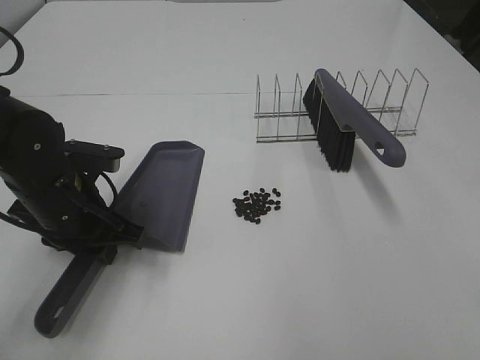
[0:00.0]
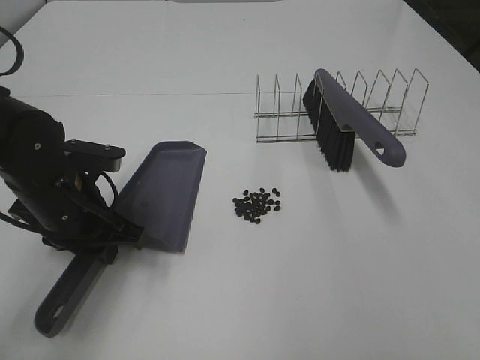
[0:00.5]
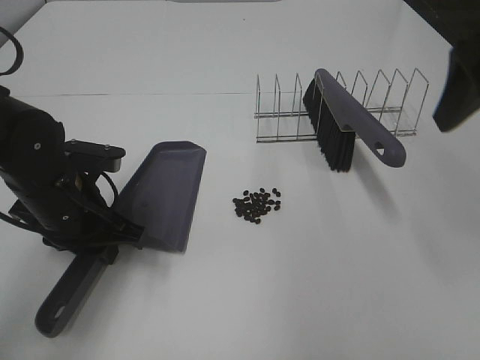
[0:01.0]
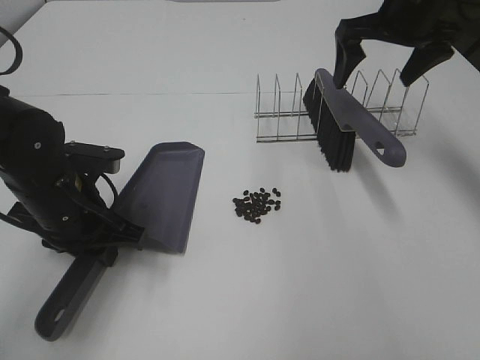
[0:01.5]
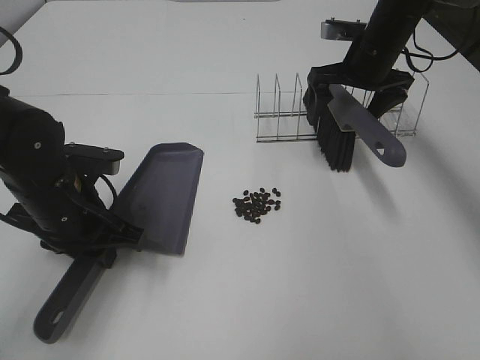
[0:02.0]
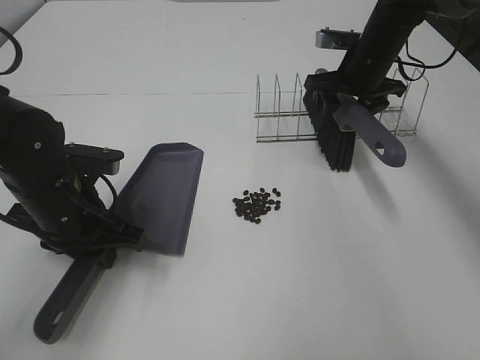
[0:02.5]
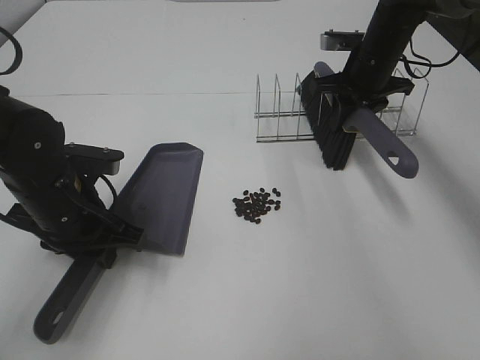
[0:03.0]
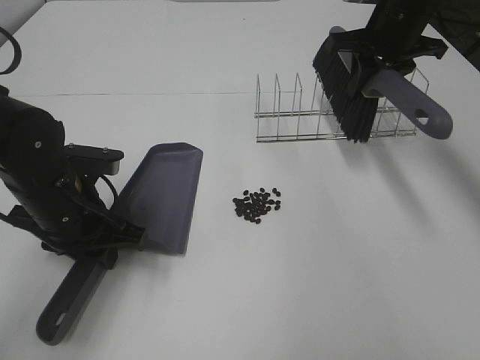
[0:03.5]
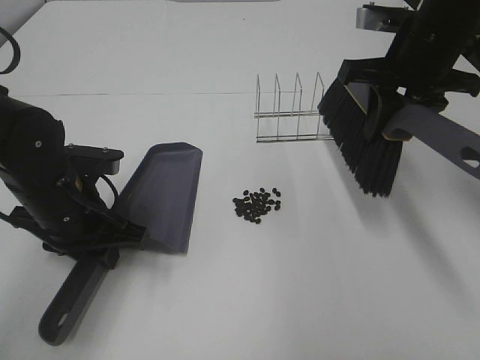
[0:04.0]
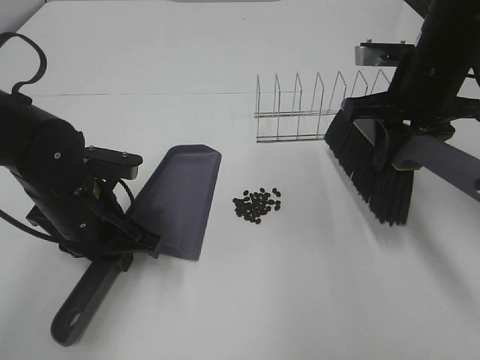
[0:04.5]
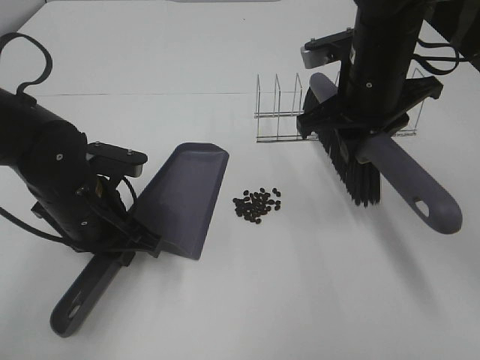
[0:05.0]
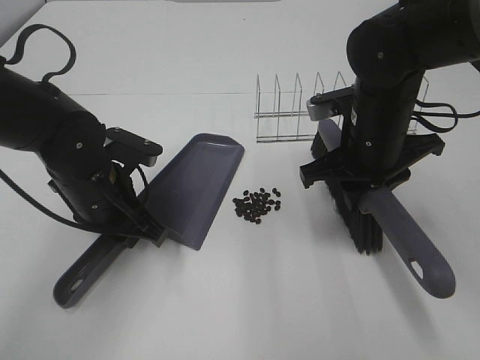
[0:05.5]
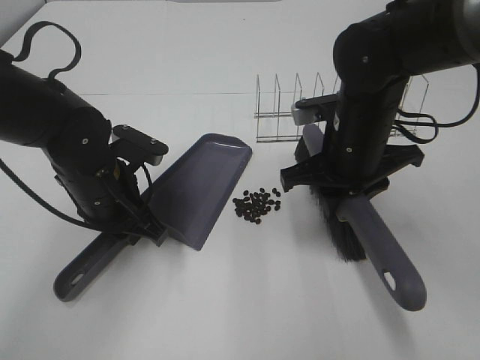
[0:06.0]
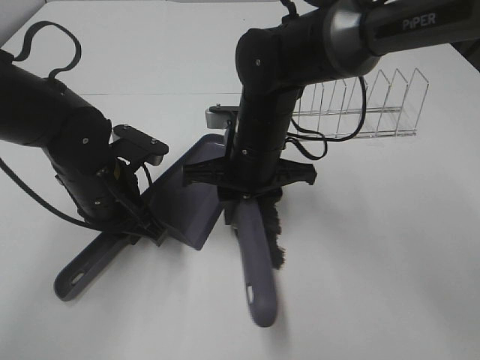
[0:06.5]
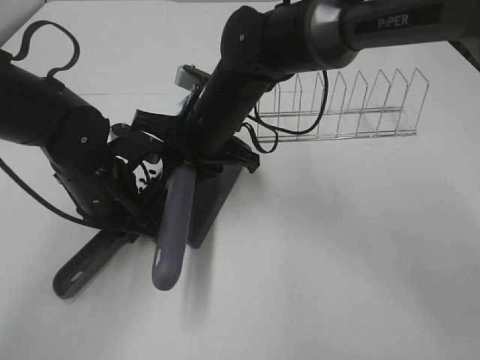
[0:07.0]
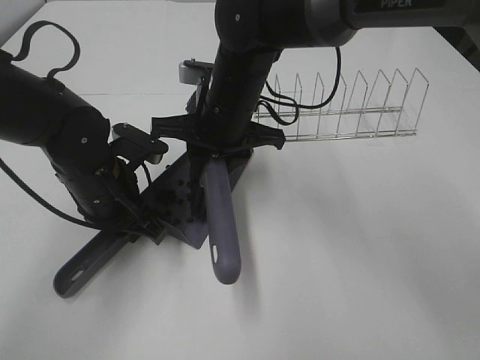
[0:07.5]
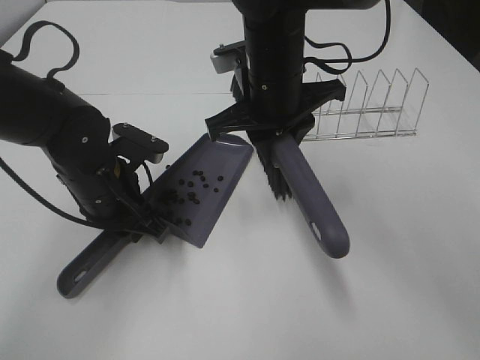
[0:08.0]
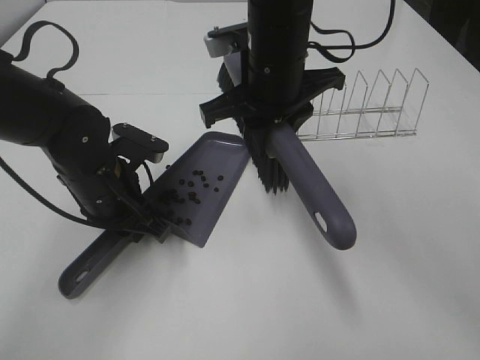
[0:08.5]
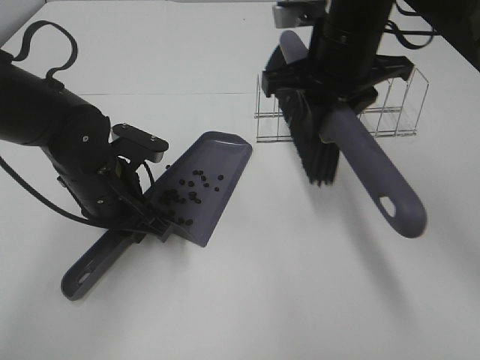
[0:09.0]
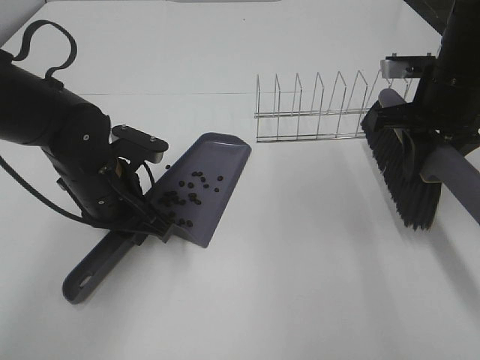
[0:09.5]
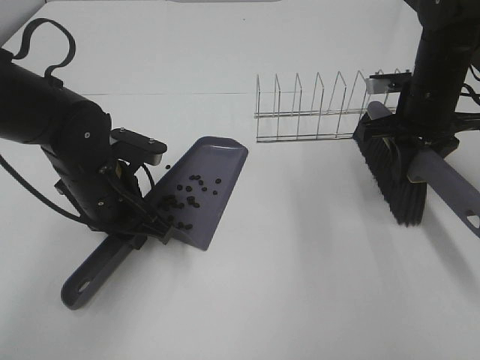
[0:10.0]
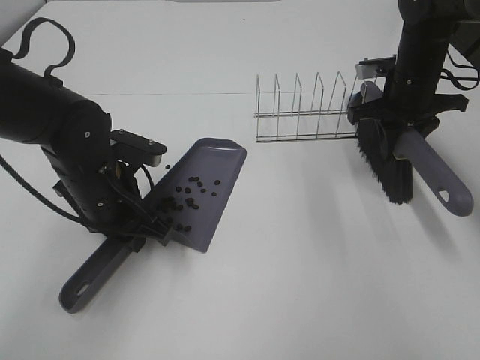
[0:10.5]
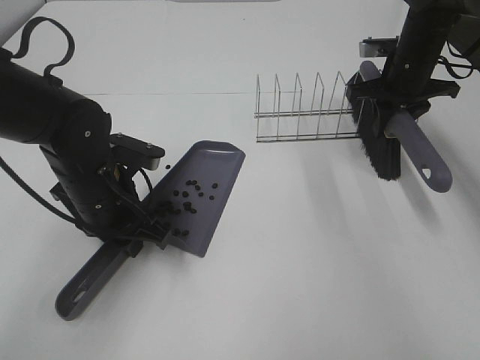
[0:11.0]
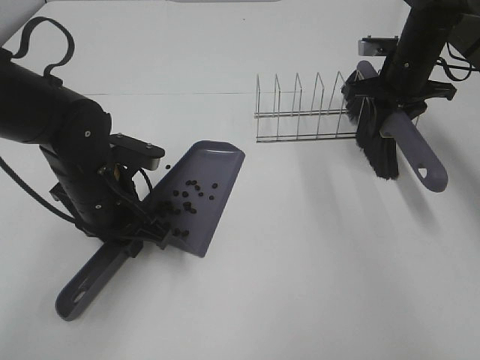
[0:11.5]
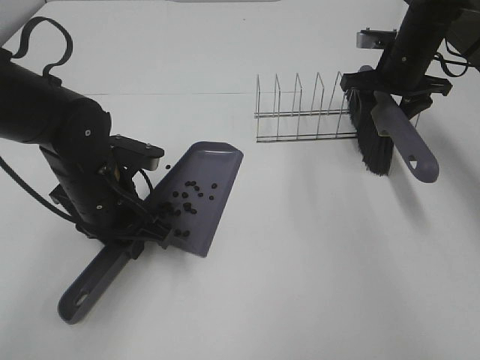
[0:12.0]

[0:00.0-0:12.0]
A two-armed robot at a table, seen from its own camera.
Task of the whole recording: Sweep Coffee Bean.
Step, 0:00.0 to 0:02.5: Right hand:grab the broom.
Step, 0:03.0 to 0:07.5: Right hand:sweep the coffee beans into the dustpan.
Step, 0:08.0 to 0:12.0: Right hand:place the broom on the rack.
0:00.0 to 0:02.0: The right gripper moves forward, some 50 cm.
0:02.0 to 0:04.0: The right gripper heads backward and upward, covering approximately 15 cm, and closes.
0:04.0 to 0:06.0: The right gripper moves downward and to the left, approximately 10 cm.
0:06.0 to 0:08.0: The right gripper moves to the left and upward, about 10 cm.
0:08.0 to 0:10.0: The right gripper goes about 20 cm to the right.
0:10.0 to 0:12.0: The right gripper goes roughly 10 cm forward, and opens.

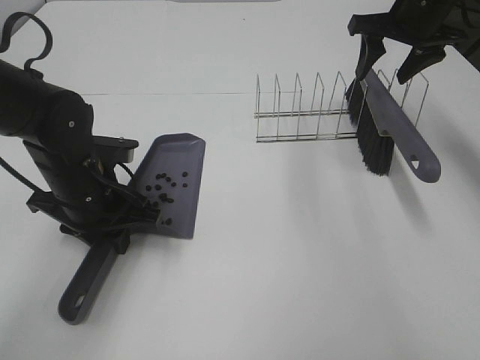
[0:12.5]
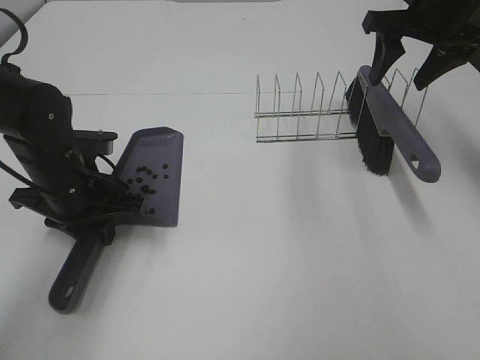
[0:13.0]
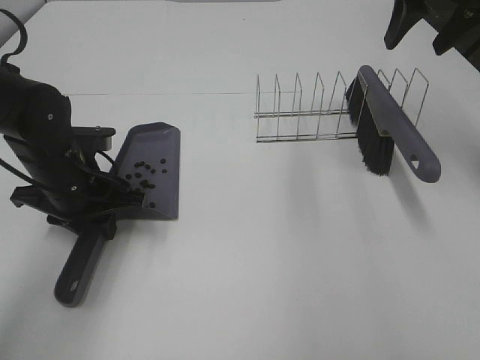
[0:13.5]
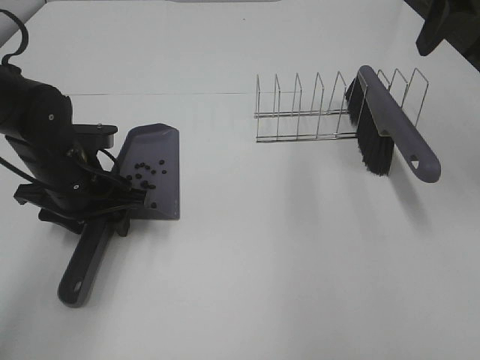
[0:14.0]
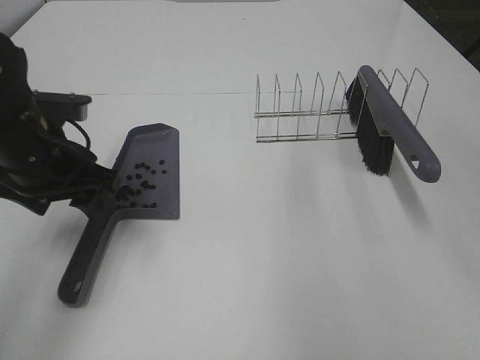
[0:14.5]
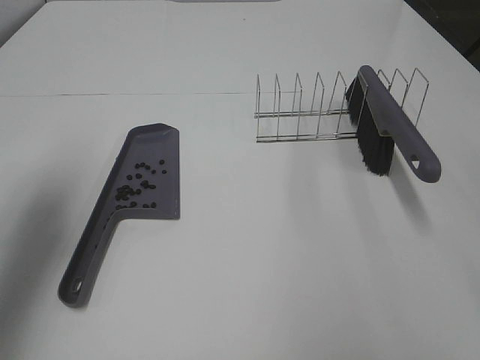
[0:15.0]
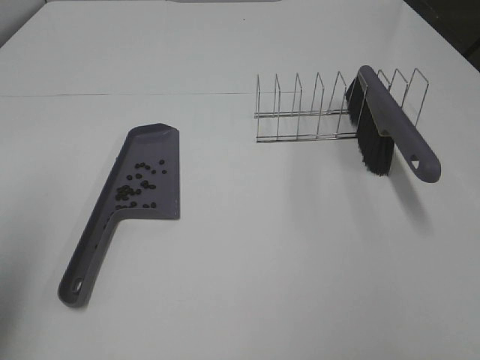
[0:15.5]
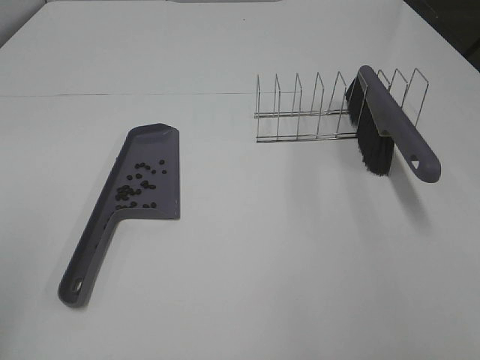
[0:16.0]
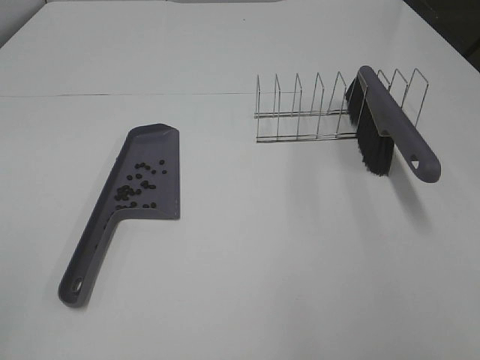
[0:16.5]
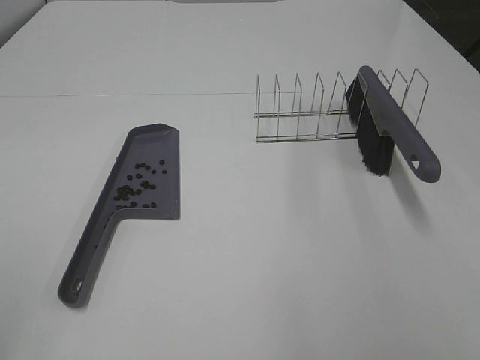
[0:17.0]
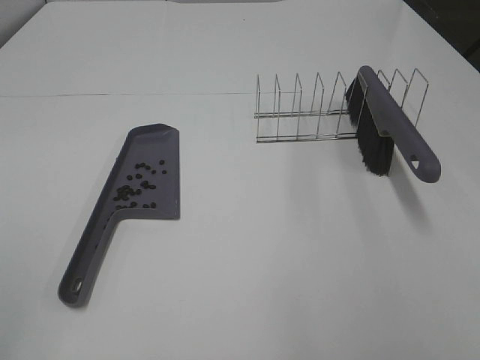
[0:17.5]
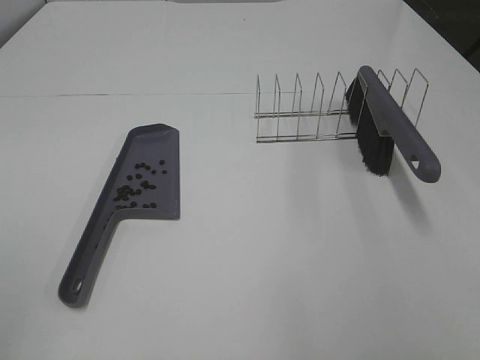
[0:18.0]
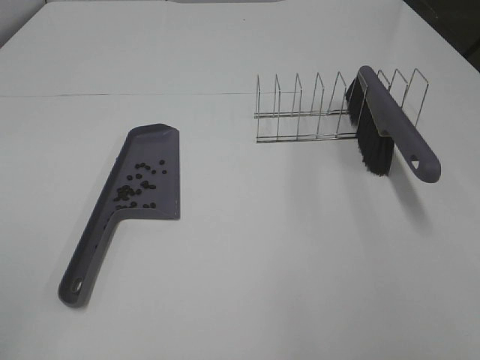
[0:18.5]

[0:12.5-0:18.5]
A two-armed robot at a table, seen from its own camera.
Task of the whole recording: Sweep Coffee Bean.
0:12.5 to 0:14.5: The right gripper heads backward and upward, covering approximately 30 cm, while the left gripper moves upward, approximately 10 cm, and opens its fingers.
0:14.5 to 0:16.5: The left gripper shifts about 35 cm backward and to the left.

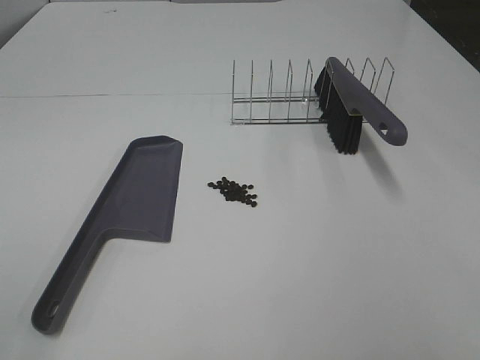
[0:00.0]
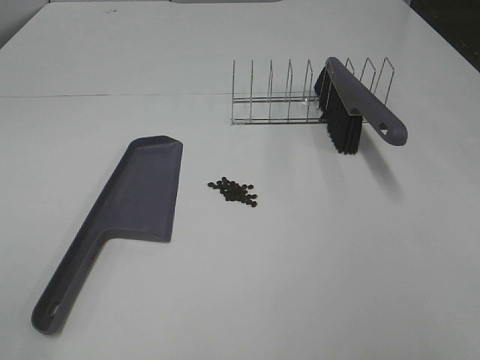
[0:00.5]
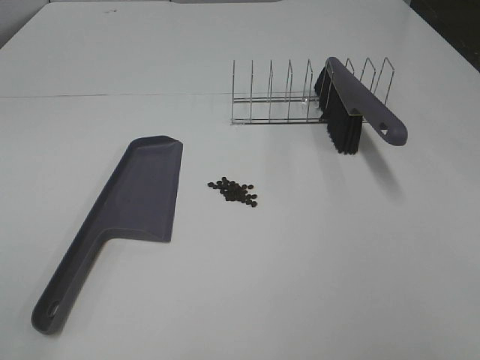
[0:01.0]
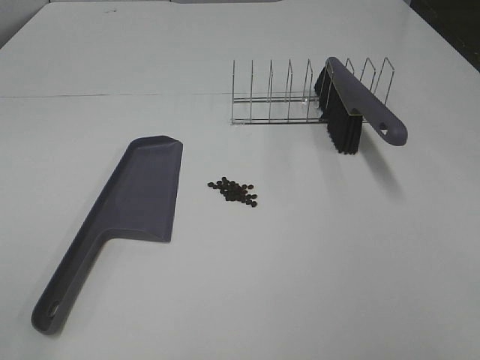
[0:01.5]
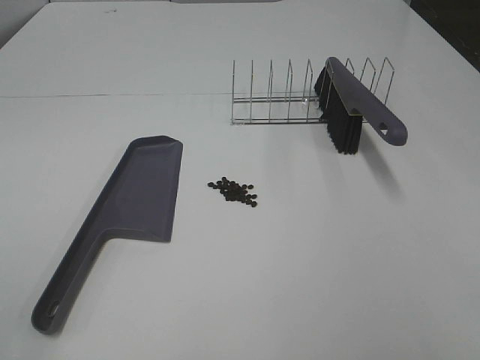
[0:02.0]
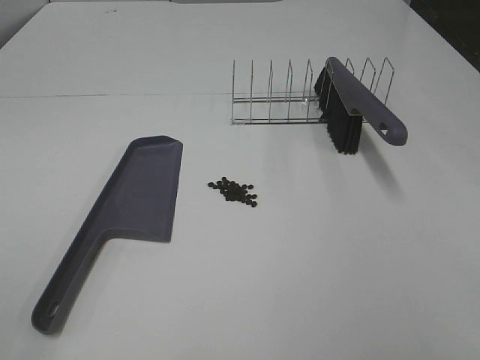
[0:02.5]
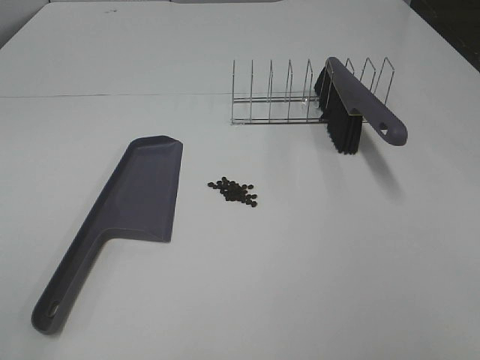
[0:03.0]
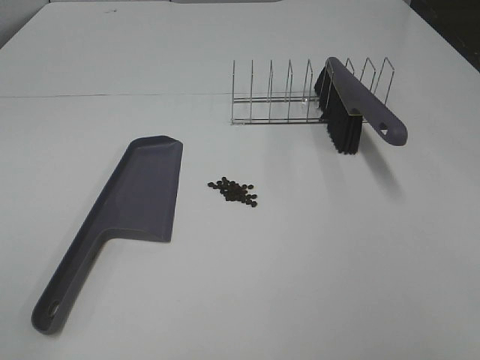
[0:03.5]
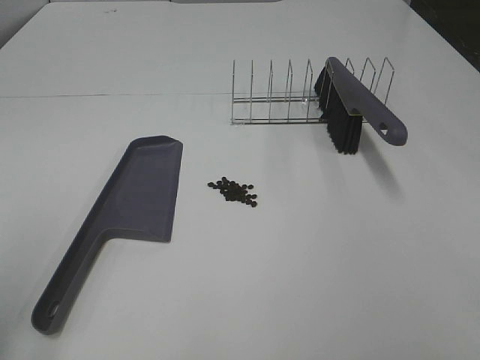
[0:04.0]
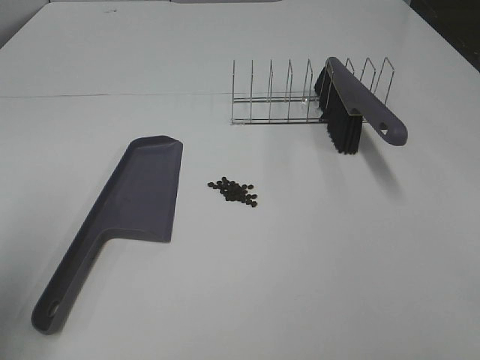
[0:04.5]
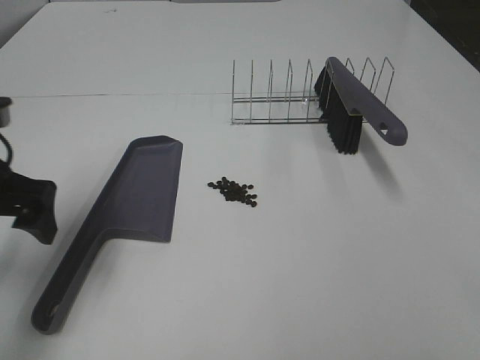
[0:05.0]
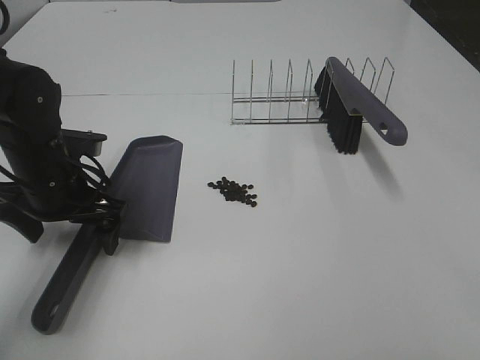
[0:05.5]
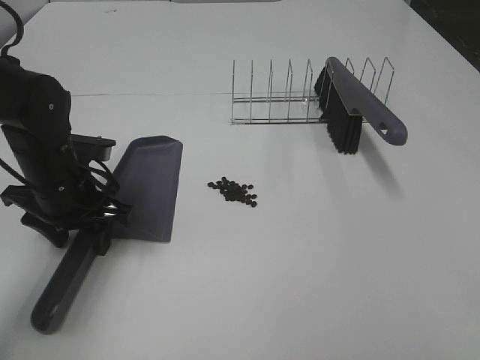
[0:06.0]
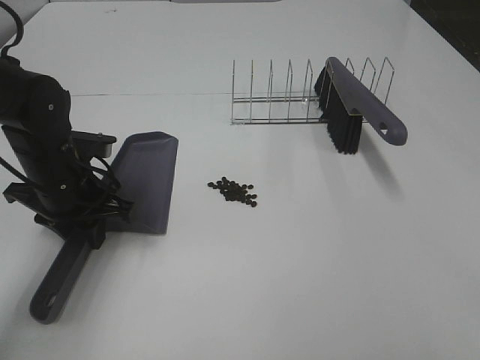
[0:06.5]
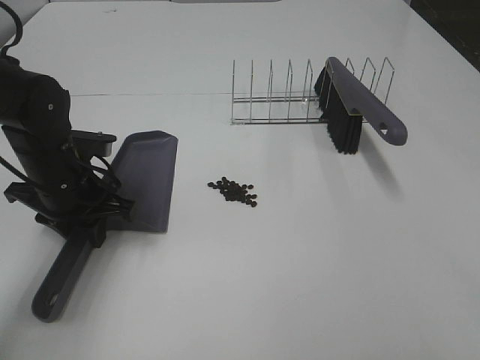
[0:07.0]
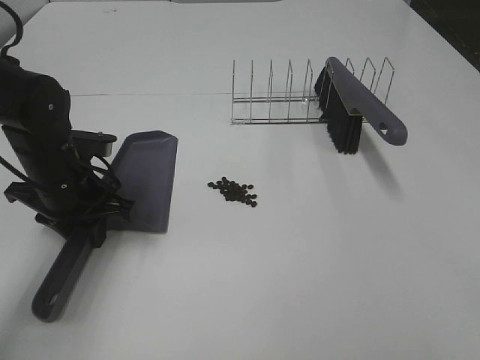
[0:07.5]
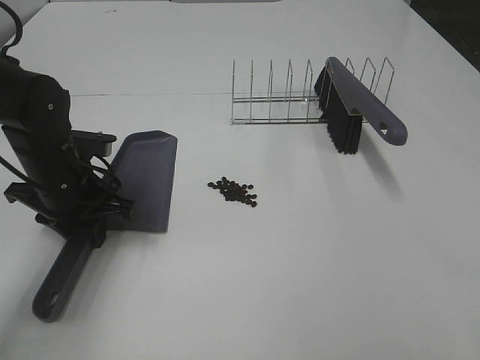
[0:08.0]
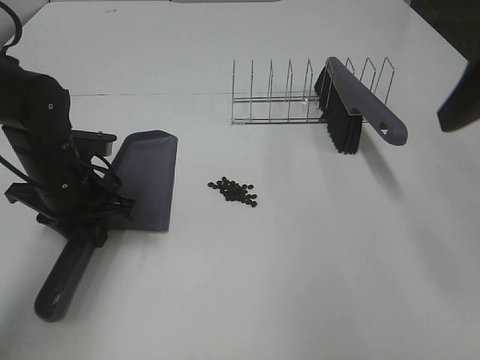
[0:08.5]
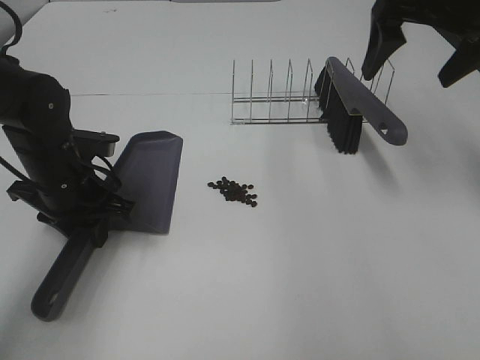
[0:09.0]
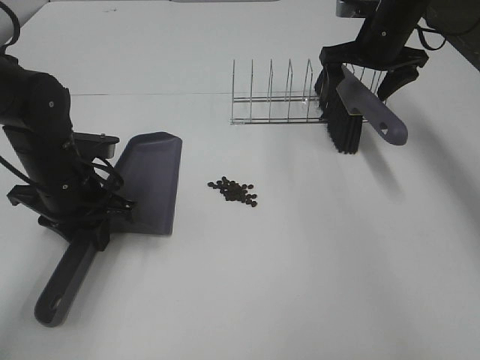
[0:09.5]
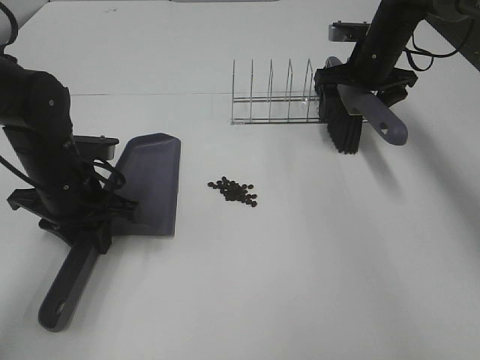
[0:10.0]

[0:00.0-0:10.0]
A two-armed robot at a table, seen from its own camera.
Task of the whole recording: Sweep Coffee Bean.
Step, 0:00.0 to 0:06.0: Left hand: grab the dustpan.
0:00.0 to 0:02.0: The two grippers keep their place.
0:04.0 to 0:06.0: The left gripper is displaced forward, downward and to the right by some 30 cm, and closes up.
0:06.0 to 0:08.0: The left gripper closes.
0:08.0 to 0:10.0: The right gripper is displaced forward by approximately 50 cm.
